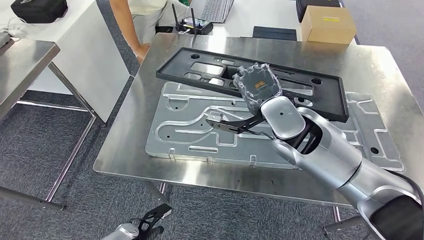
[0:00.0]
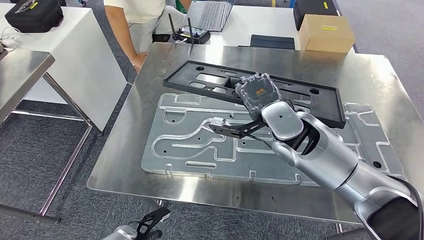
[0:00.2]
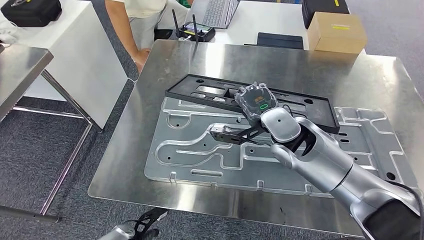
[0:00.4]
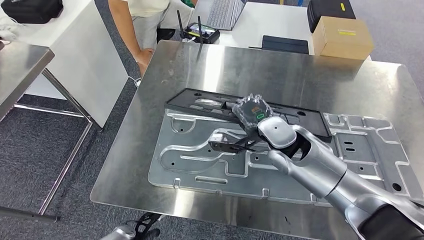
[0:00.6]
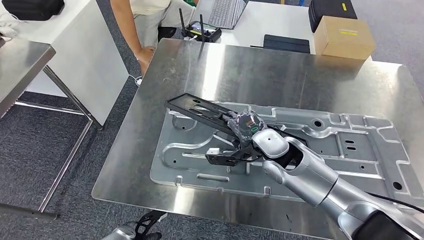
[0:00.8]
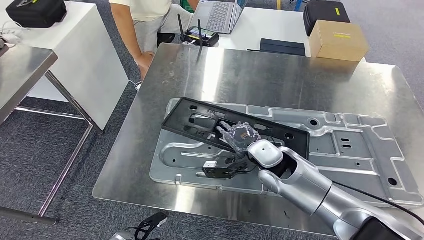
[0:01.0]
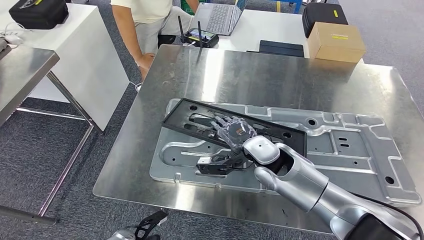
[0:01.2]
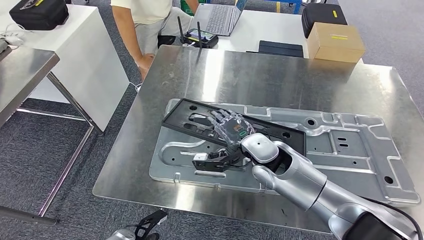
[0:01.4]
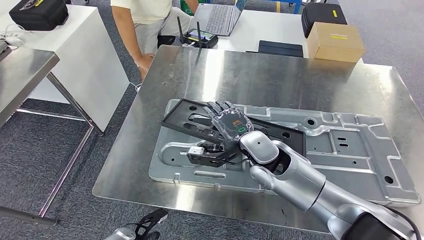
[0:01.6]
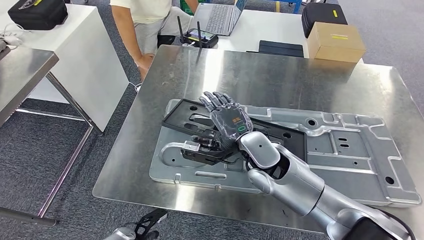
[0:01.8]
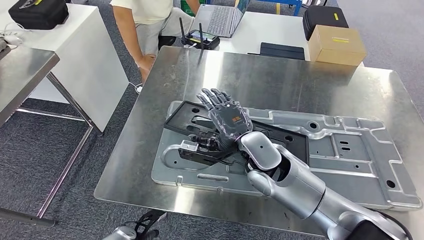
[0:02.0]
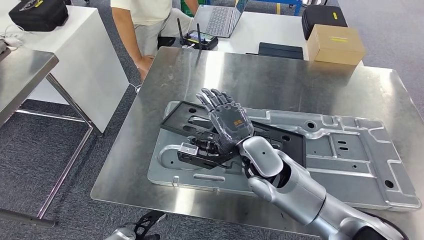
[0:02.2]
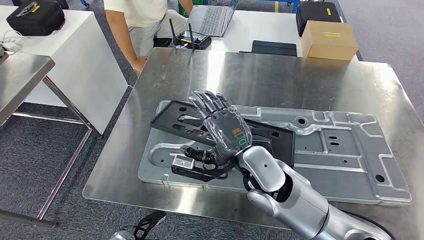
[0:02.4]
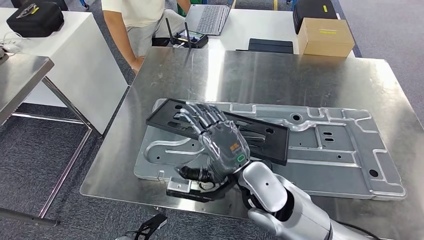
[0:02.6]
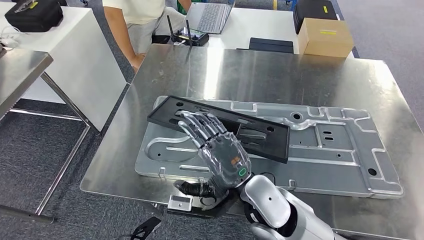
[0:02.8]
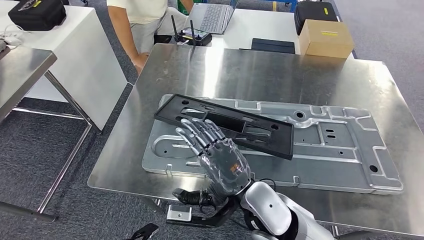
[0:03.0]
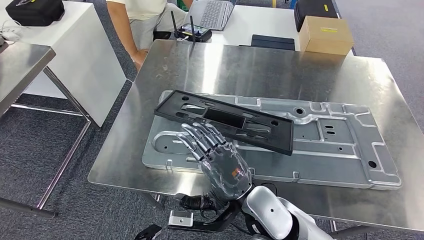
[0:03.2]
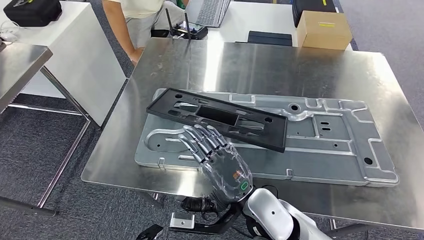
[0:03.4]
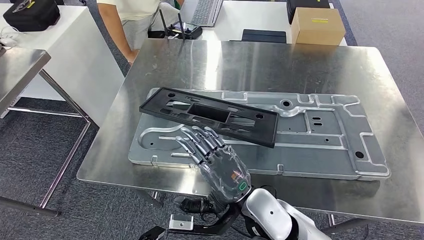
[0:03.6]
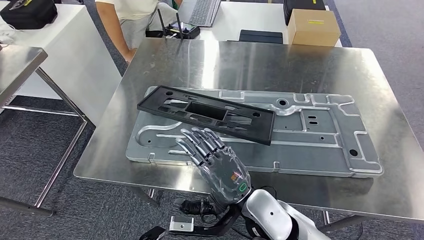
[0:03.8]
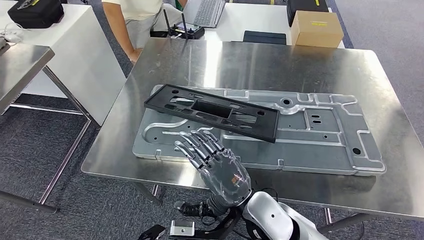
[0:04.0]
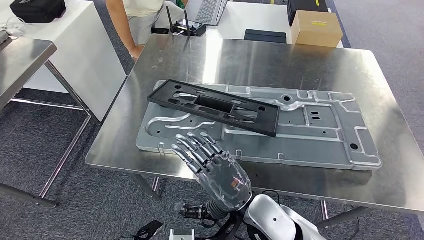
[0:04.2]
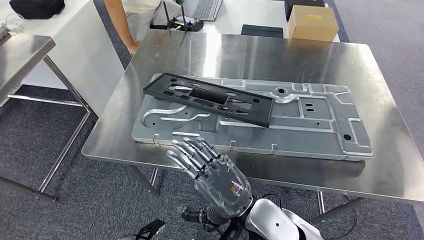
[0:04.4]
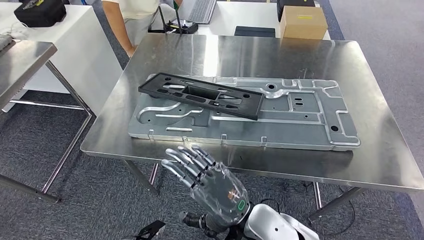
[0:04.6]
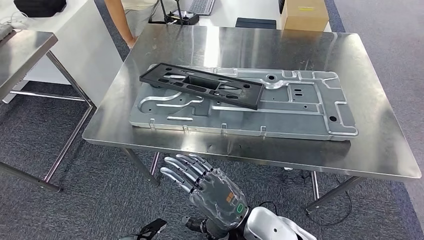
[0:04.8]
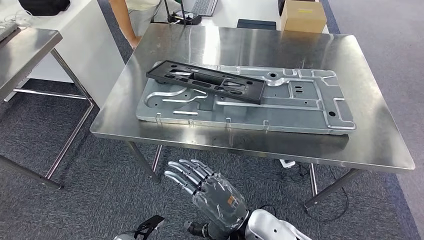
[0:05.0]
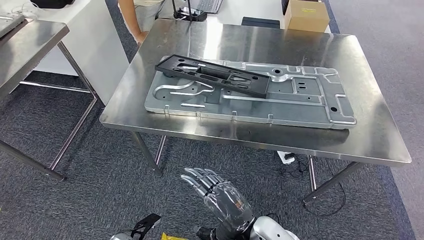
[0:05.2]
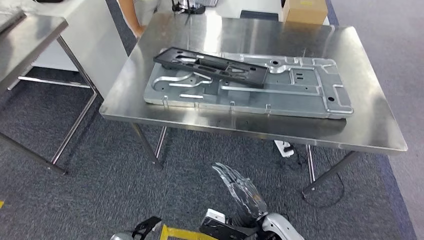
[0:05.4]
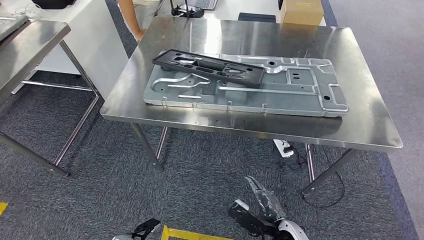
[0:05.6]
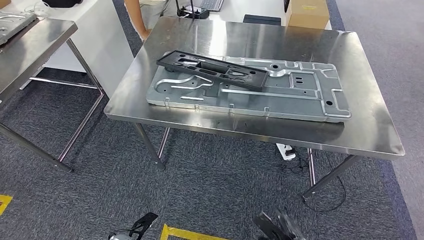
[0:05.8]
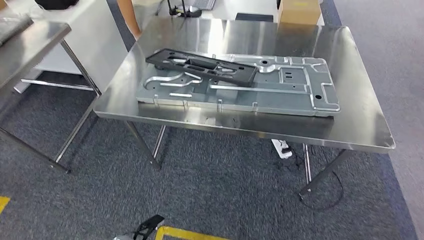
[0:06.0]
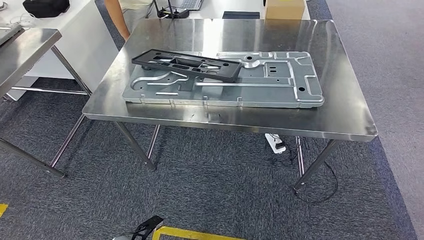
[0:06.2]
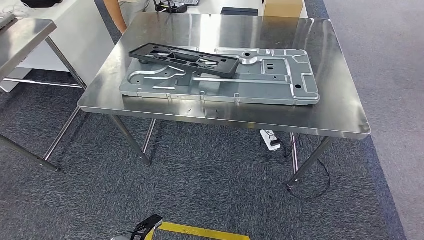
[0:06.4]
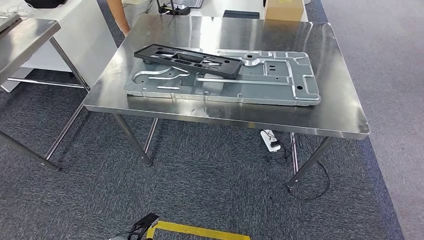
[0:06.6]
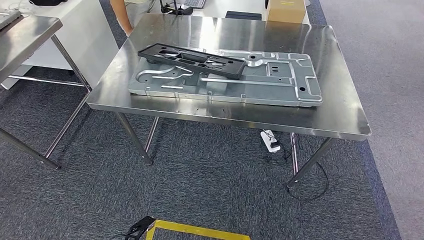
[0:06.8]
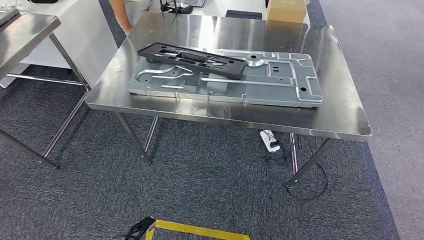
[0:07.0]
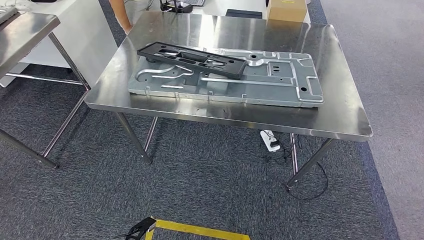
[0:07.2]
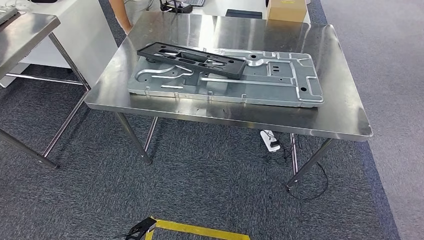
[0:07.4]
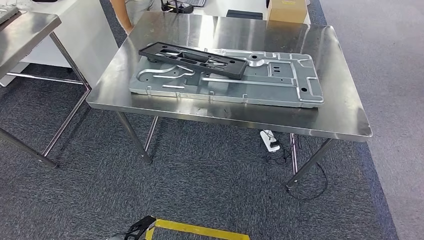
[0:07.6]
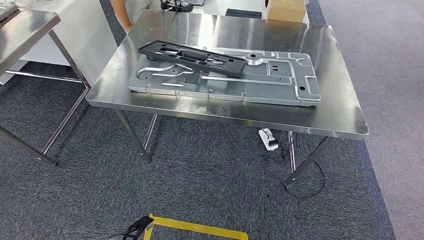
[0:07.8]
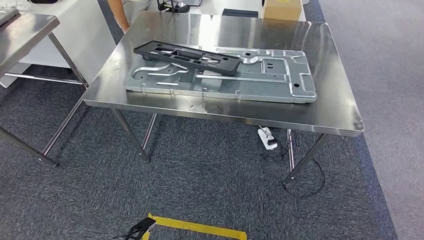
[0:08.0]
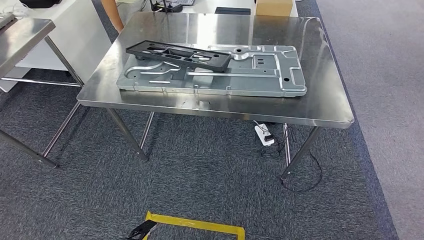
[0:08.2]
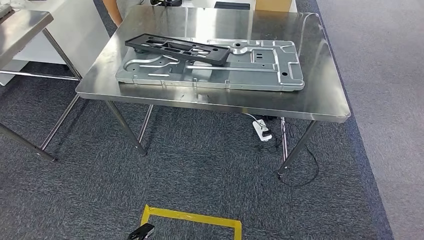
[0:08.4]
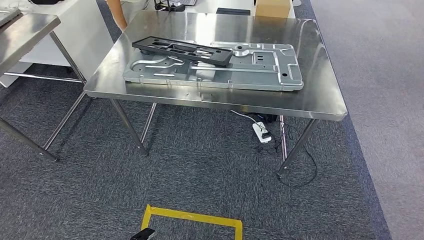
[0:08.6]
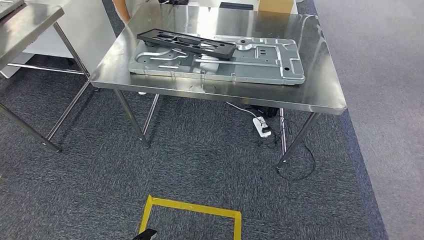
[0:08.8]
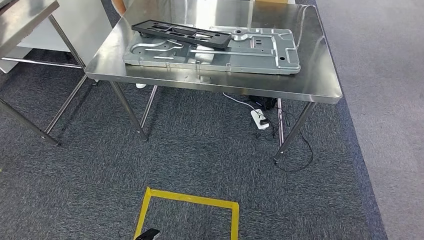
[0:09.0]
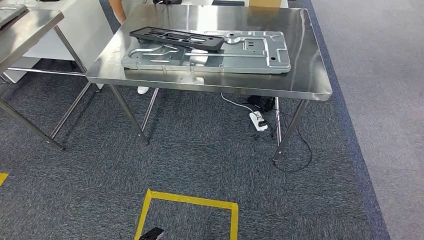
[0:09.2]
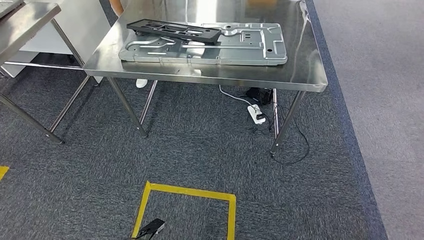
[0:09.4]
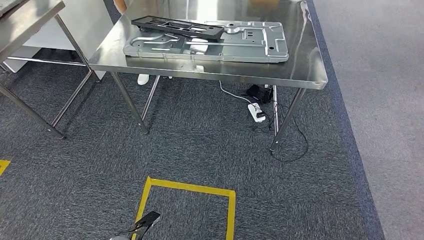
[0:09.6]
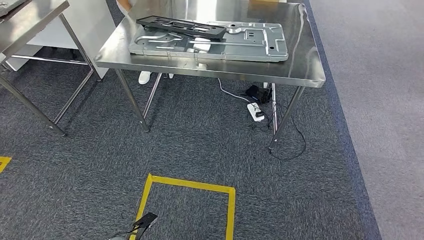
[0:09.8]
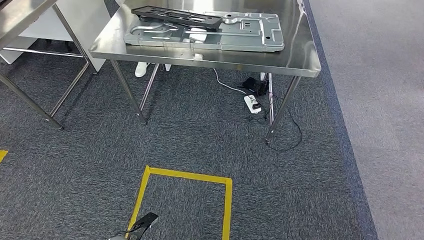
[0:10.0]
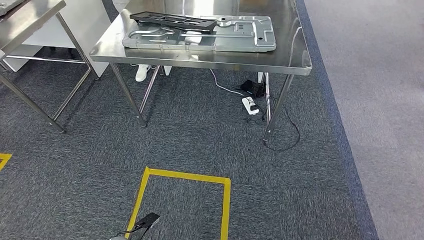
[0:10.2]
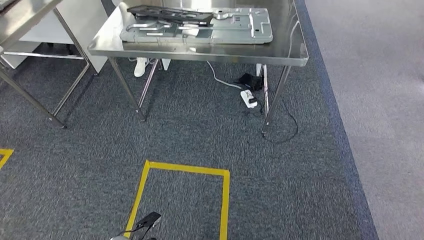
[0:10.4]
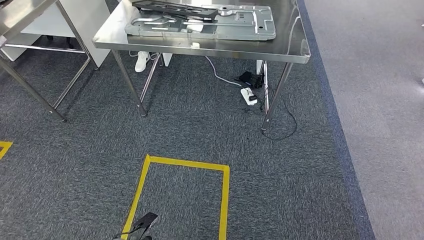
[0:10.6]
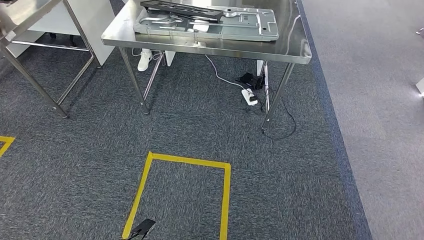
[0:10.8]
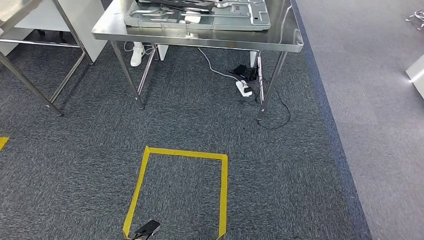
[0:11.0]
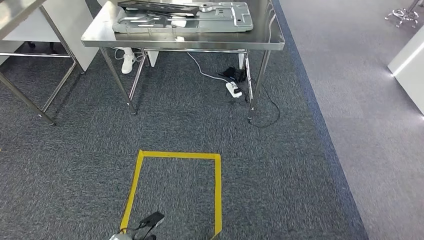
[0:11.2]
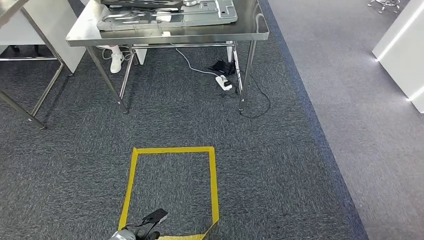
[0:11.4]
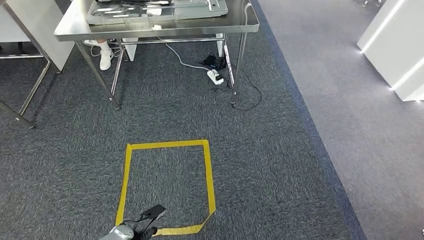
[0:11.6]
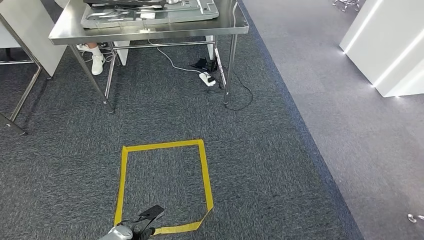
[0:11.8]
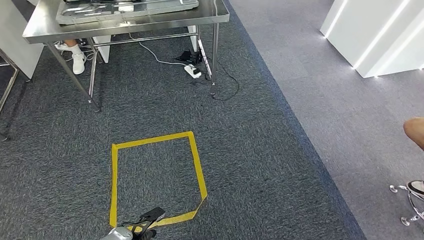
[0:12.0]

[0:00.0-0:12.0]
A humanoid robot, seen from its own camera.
Step, 0:00.0 to 0:07.4: Insert the large material into the corresponding slot on the workbench.

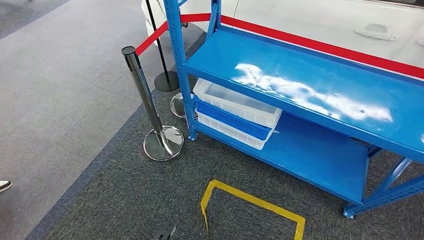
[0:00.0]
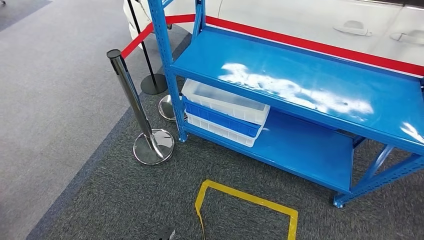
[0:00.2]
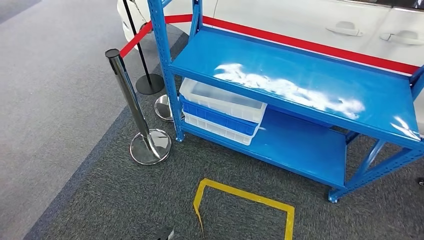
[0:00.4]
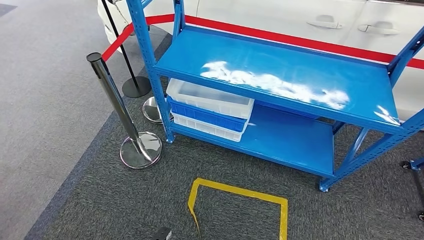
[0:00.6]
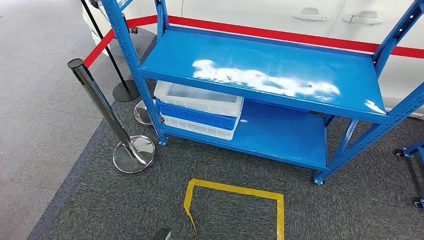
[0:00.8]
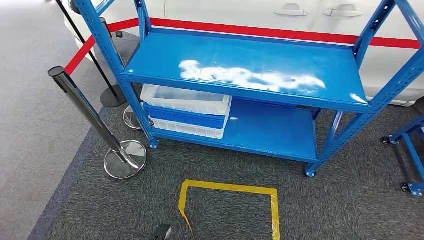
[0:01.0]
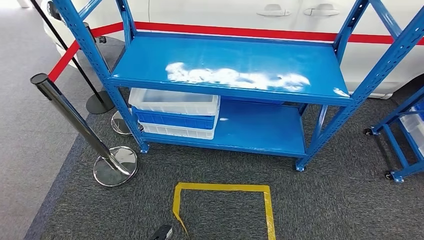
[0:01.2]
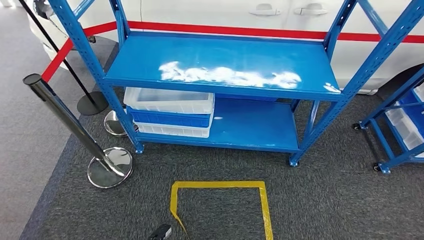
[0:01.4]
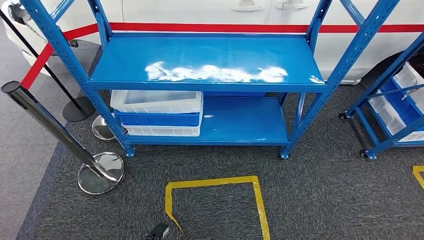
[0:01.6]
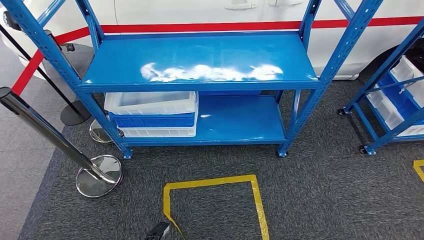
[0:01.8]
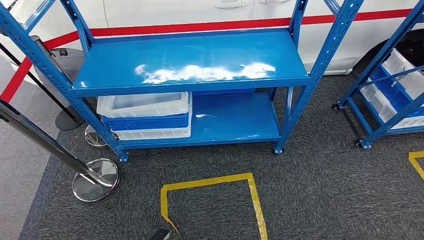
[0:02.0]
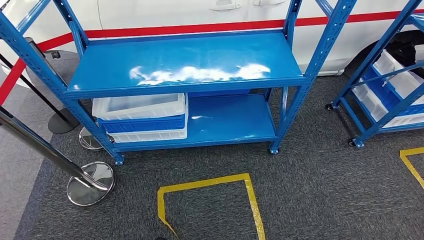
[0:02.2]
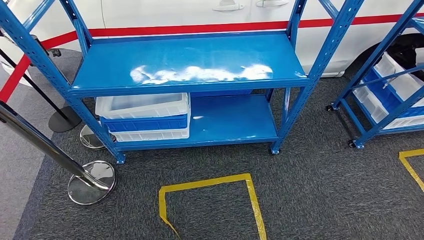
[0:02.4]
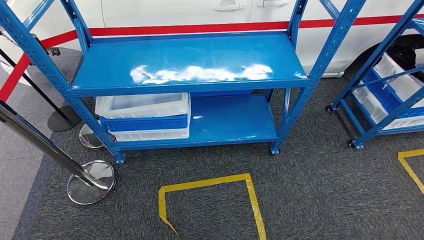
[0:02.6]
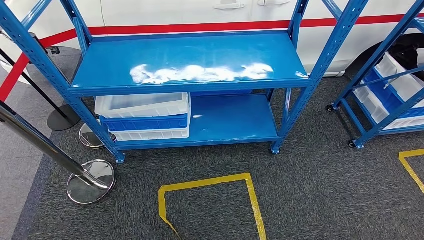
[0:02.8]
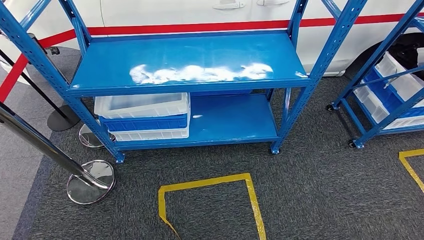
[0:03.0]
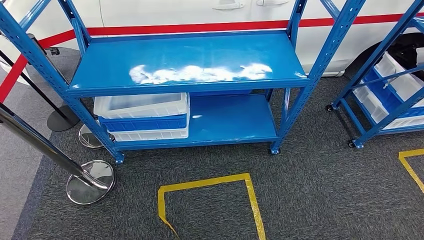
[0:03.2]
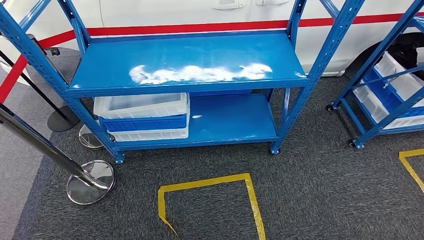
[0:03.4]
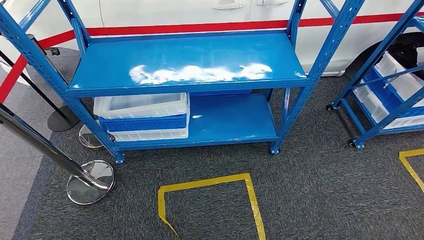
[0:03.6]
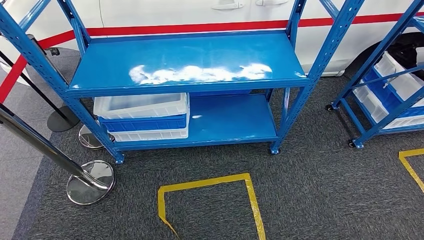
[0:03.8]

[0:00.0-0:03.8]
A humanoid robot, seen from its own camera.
Step, 0:00.0 to 0:03.8: Move to the initial position of the shelf.
0:02.6 to 0:03.8: The left hand travels to the left and backward by some 10 cm. The right hand shifts roughly 10 cm backward and to the right.
